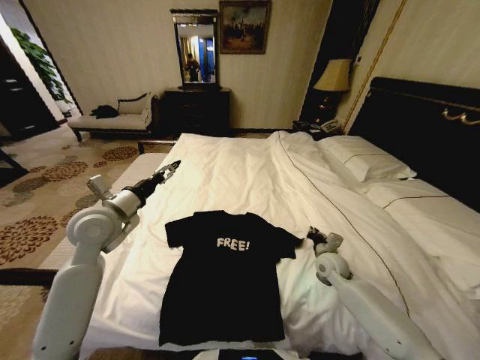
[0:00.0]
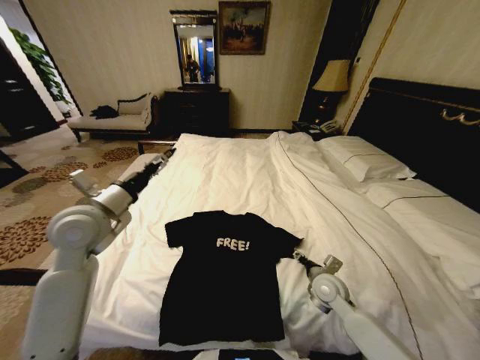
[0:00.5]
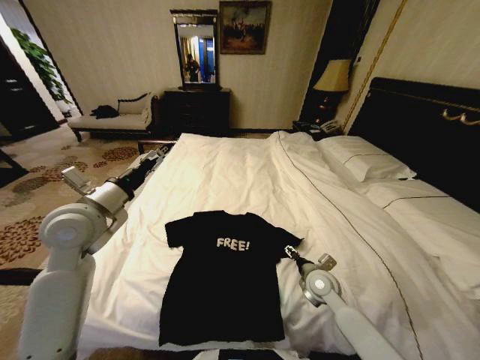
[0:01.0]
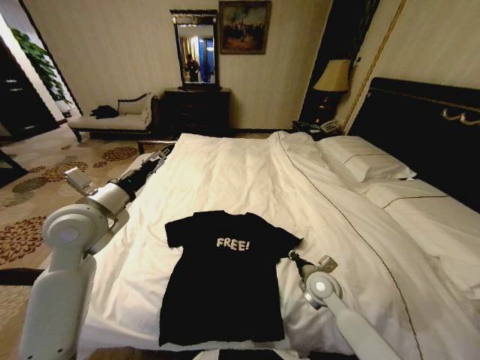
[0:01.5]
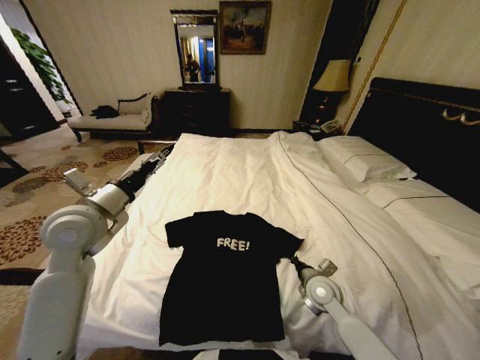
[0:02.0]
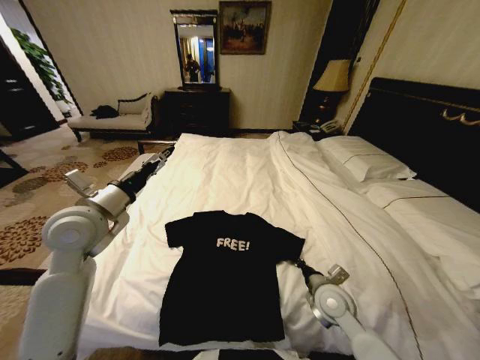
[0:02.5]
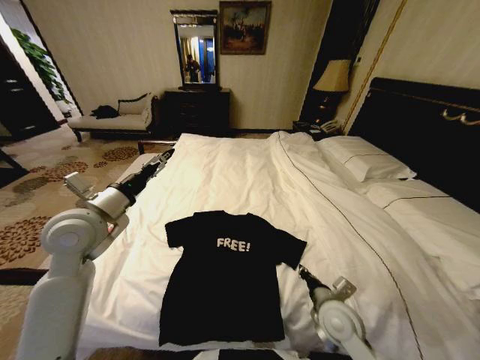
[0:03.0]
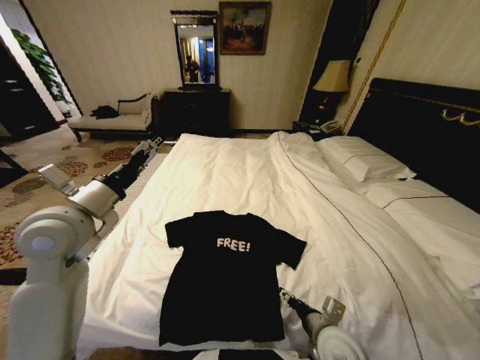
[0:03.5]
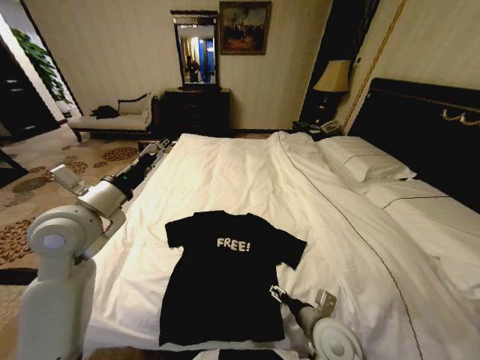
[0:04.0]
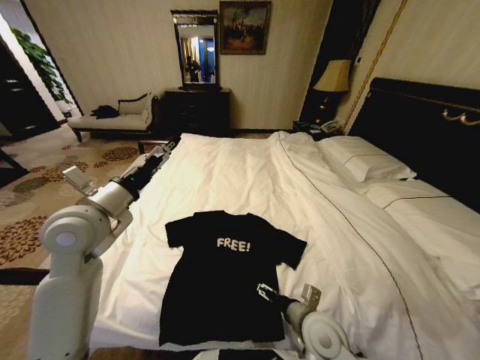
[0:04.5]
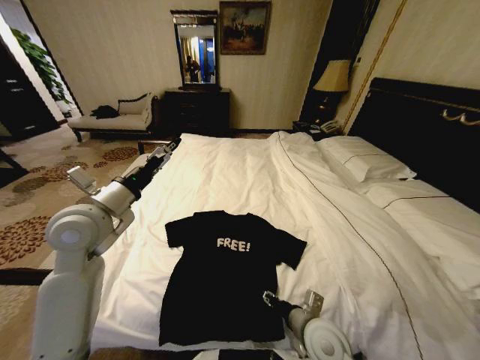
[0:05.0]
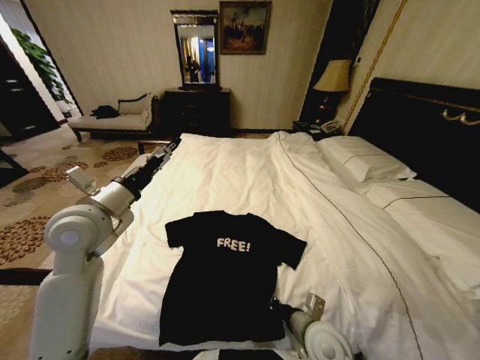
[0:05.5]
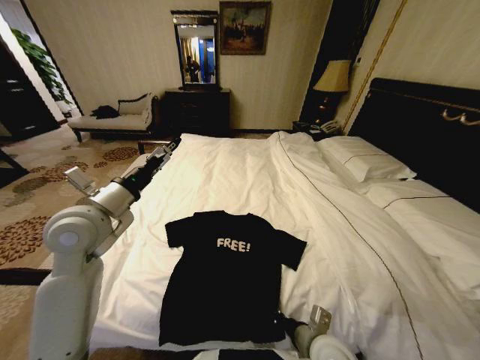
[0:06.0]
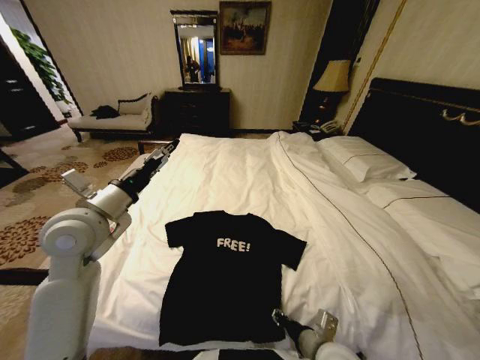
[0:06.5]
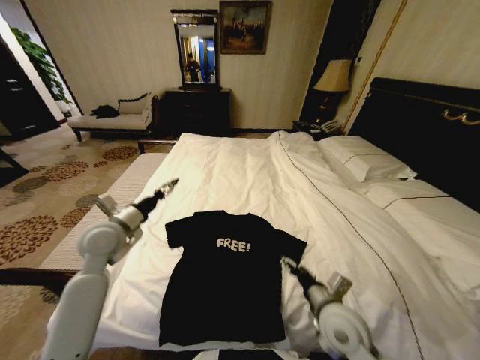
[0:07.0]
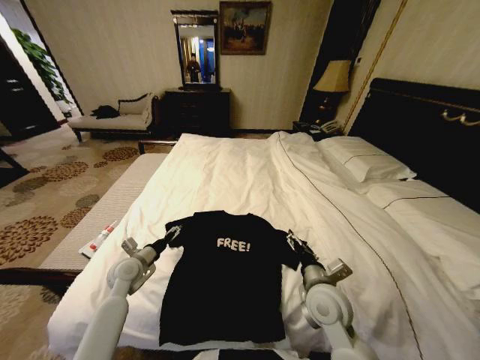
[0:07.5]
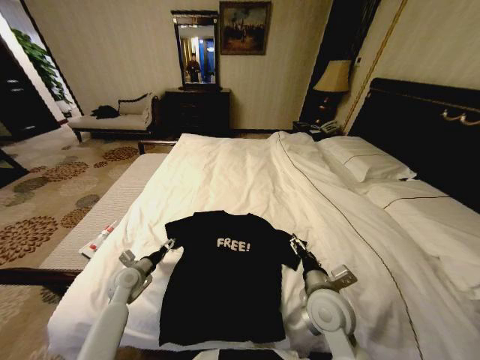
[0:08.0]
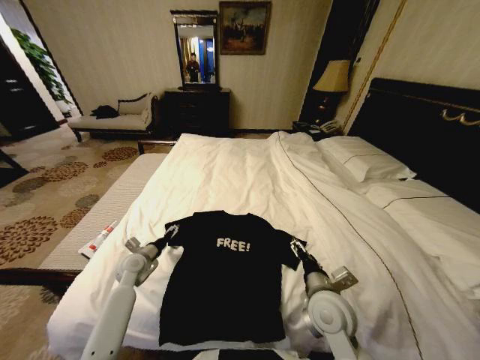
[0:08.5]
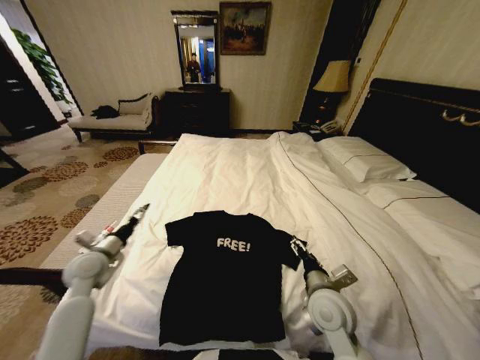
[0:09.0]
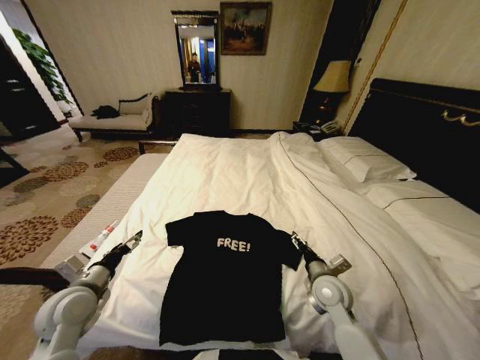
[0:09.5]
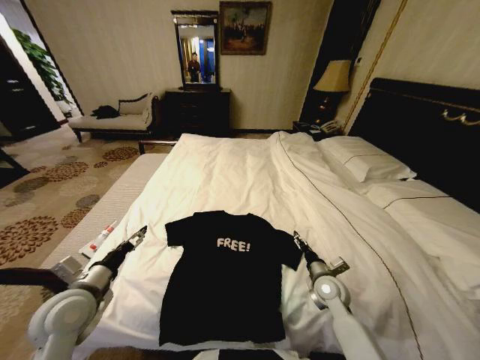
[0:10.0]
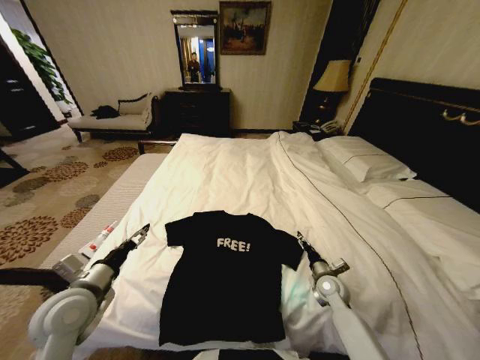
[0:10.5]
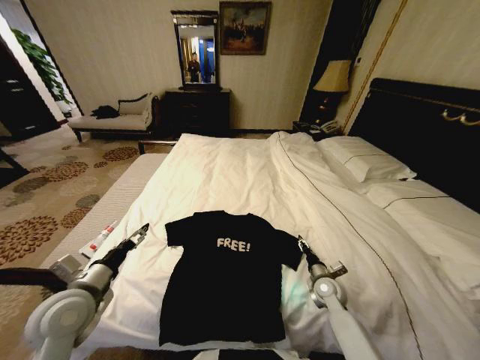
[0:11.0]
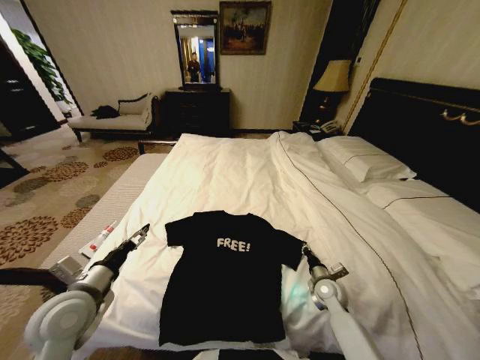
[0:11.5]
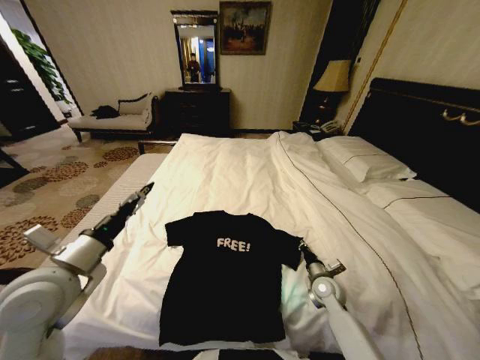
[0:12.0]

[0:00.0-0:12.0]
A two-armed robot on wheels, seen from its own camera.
Task of the whole recording: Fold the clothes on the bed.
0:00.0 to 0:02.0: The right gripper goes some 10 cm backward and to the left, and opens, then closes again.
0:02.0 to 0:04.0: The right gripper travels backward by some 10 cm, and opens up.
0:04.0 to 0:06.0: The right gripper closes up.
0:06.0 to 0:08.0: The left gripper travels downward by roughly 30 cm. The right gripper heads forward, covering about 10 cm, and opens.
0:08.0 to 0:10.0: The right gripper moves downward, to the right and forward, roughly 15 cm, while the left gripper travels upward and backward by some 20 cm.
0:10.0 to 0:12.0: The left gripper shifts roughly 10 cm upward. Meanwhile the right gripper closes up.

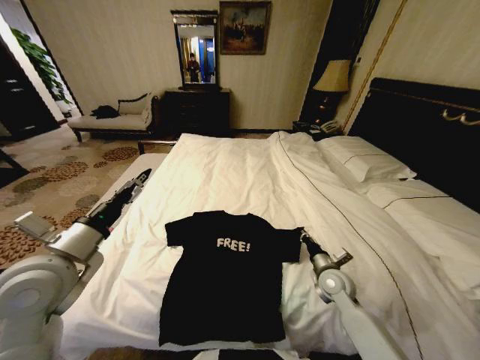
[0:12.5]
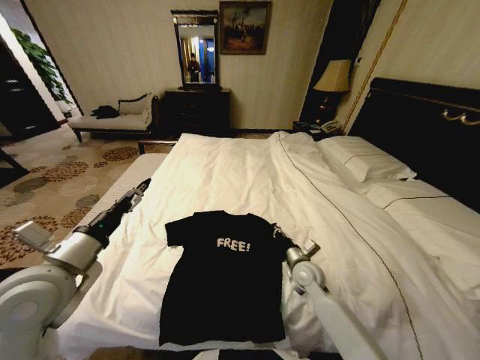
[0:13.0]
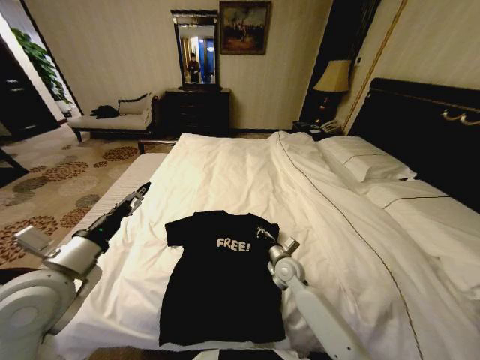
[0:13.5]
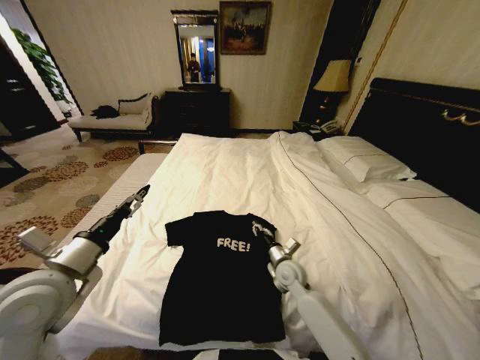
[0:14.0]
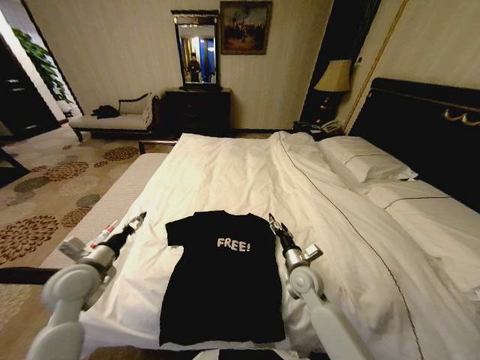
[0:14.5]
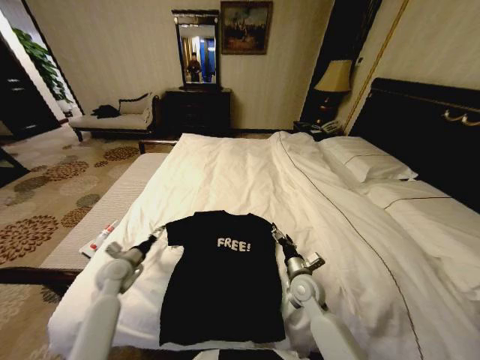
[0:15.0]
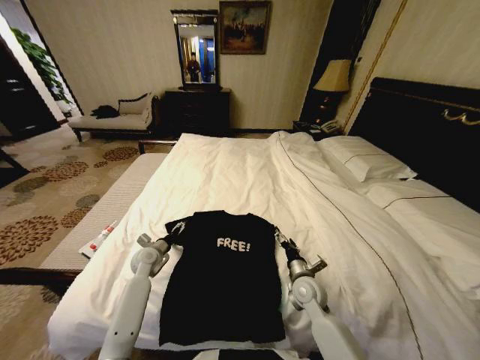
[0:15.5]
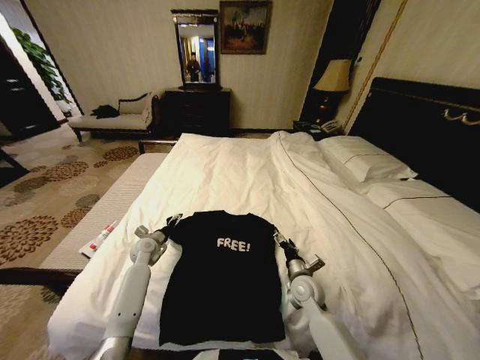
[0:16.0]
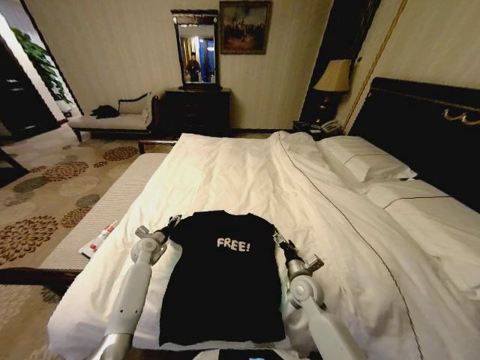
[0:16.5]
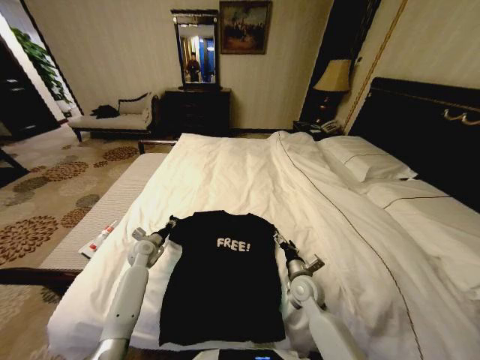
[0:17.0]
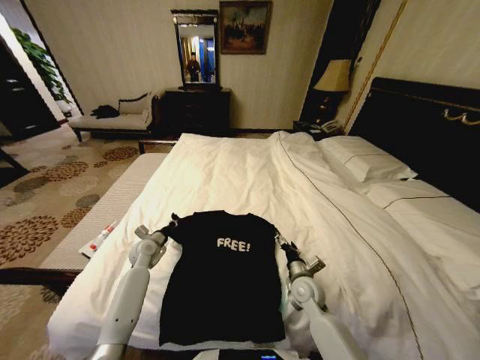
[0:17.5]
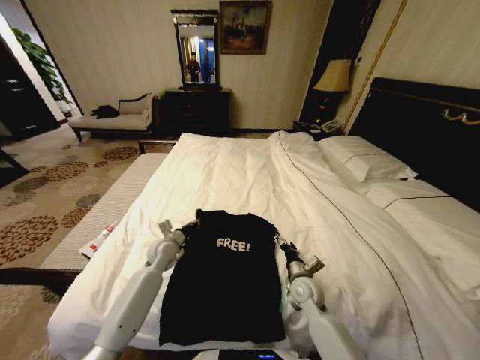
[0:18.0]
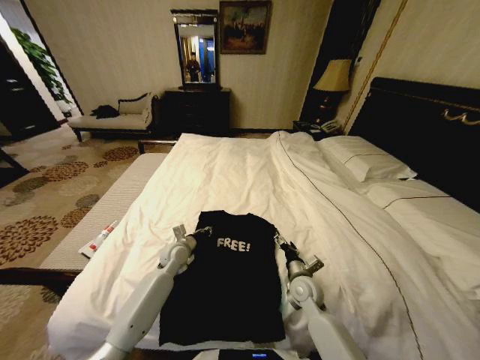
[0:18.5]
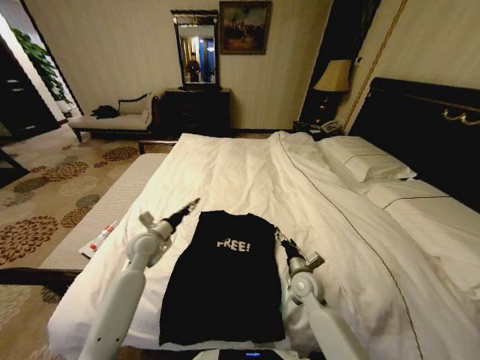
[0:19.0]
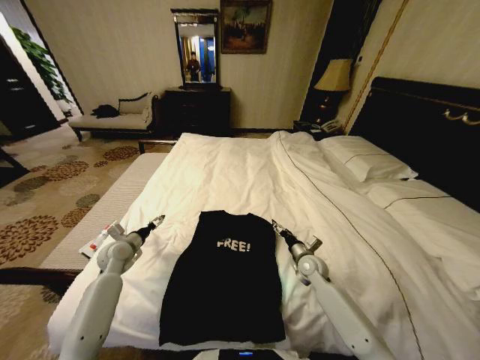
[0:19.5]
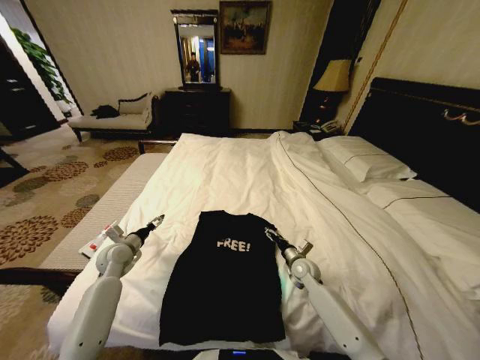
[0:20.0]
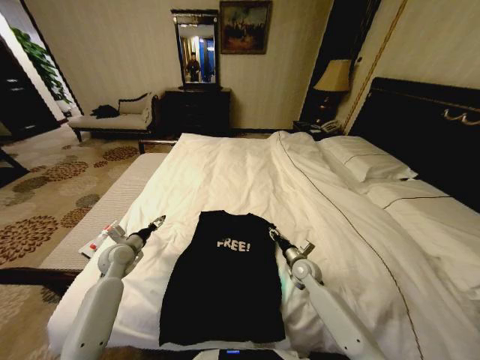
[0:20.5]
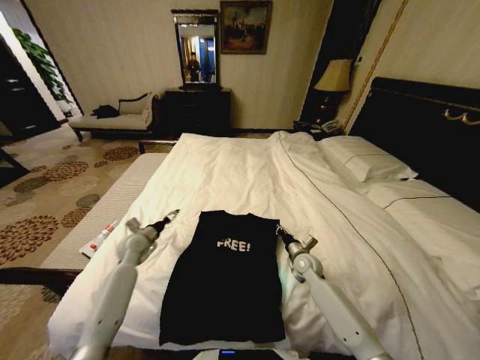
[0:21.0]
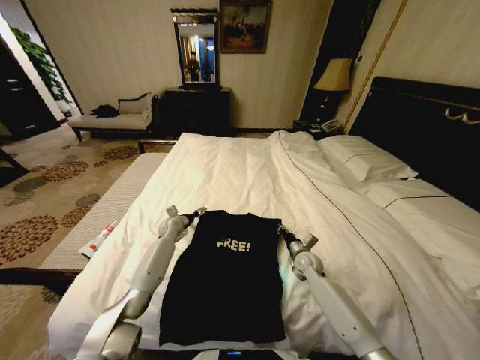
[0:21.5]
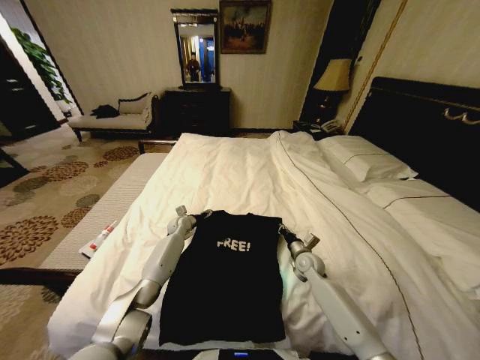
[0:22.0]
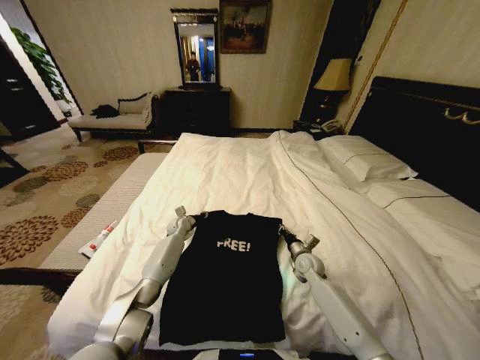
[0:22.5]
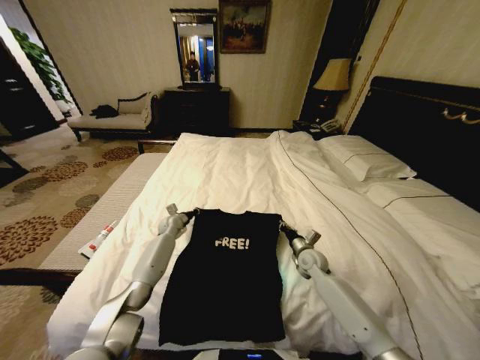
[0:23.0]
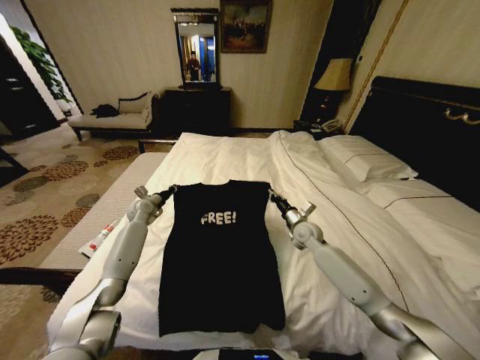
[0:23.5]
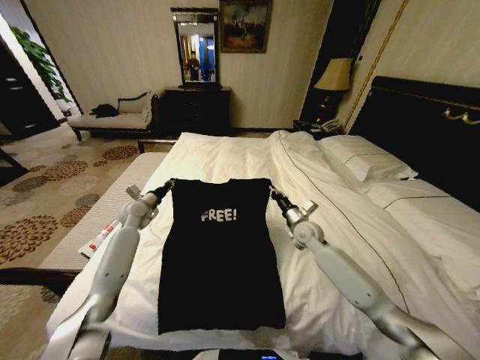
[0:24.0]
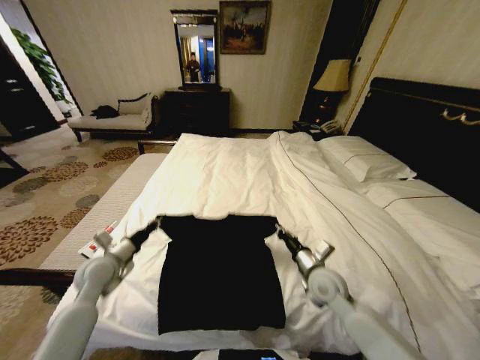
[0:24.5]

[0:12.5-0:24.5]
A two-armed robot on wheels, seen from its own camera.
Task of the whole recording: Fold the clothes on the bed.
0:12.5 to 0:14.5: The left gripper heads downward, covering some 10 cm. Meanwhile the right gripper shifts about 10 cm to the left, and opens.
0:14.5 to 0:16.5: The left gripper shifts some 25 cm forward and downward.
0:16.5 to 0:18.5: The left gripper travels to the right by roughly 10 cm, and closes.
0:18.5 to 0:20.5: The right gripper shifts approximately 5 cm forward, and closes up, while the left gripper moves to the left, roughly 15 cm, and opens.
0:20.5 to 0:22.5: The right gripper closes up; the left gripper shifts some 25 cm forward, to the right and downward, and closes its fingers.
0:22.5 to 0:24.5: The right gripper goes roughly 15 cm upward and backward. Meanwhile the left gripper moves backward, to the left and upward, some 30 cm.

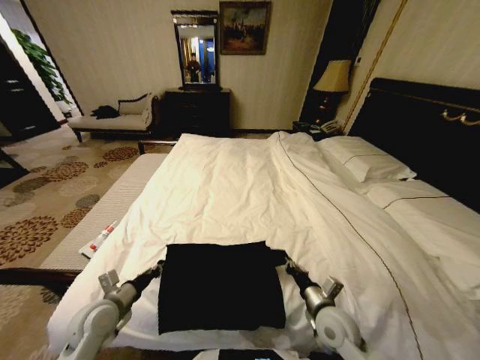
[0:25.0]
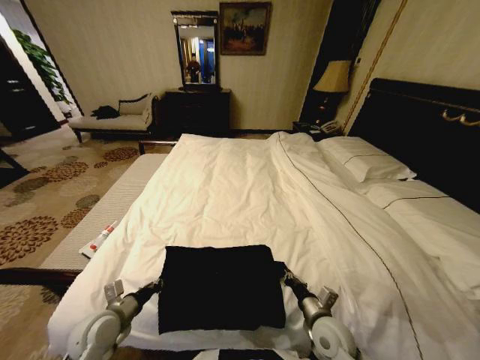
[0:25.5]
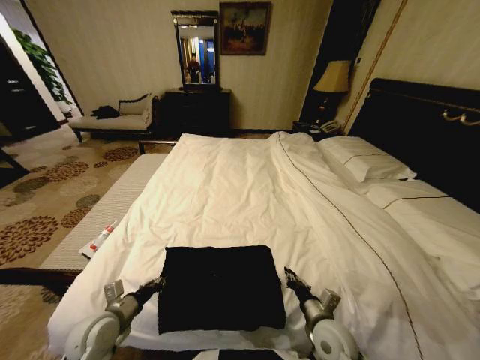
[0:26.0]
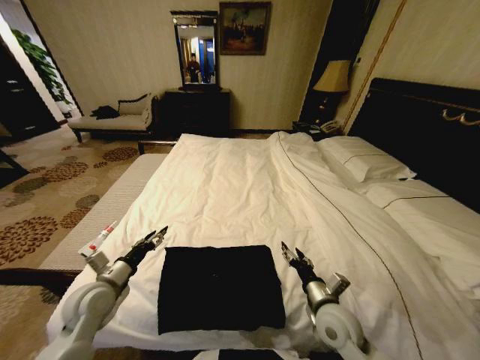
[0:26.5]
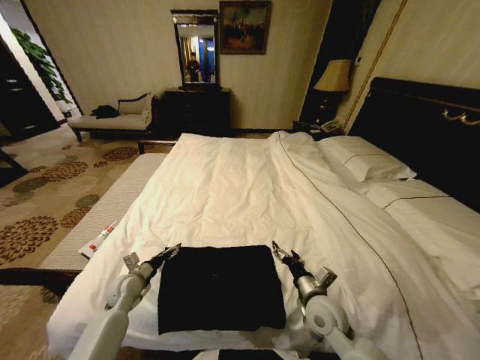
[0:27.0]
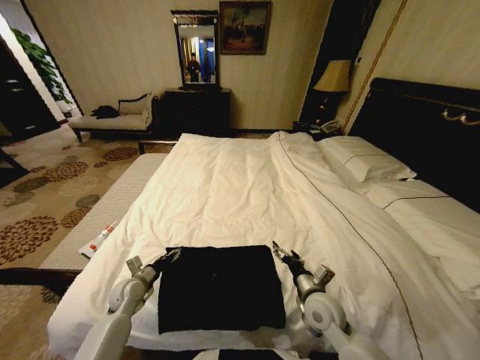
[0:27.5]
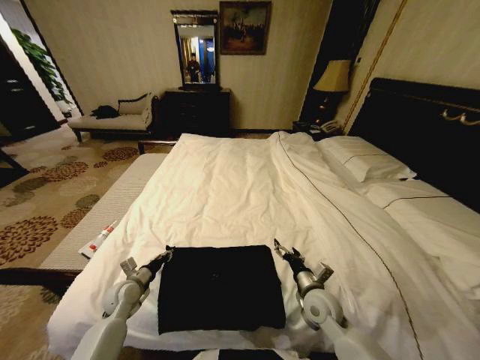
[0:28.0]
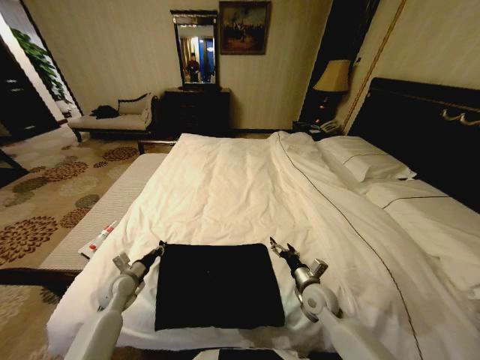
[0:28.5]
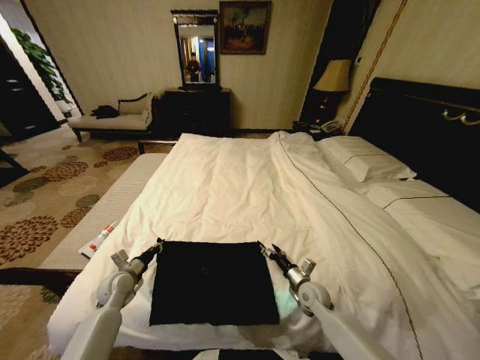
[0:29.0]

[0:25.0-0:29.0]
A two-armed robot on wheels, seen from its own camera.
Task of the whole recording: Fold the clothes on the bed.
0:25.0 to 0:27.0: The right gripper opens; the left gripper is displaced forward and downward by about 10 cm, and opens up.
0:27.0 to 0:29.0: The right gripper travels downward and forward by some 15 cm, while the left gripper closes.
